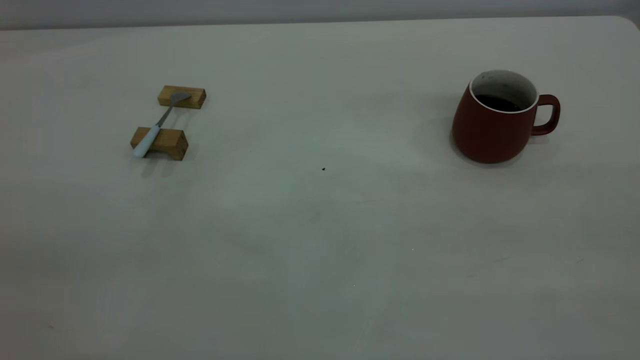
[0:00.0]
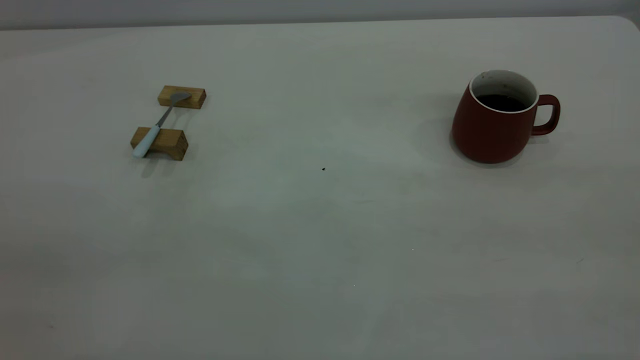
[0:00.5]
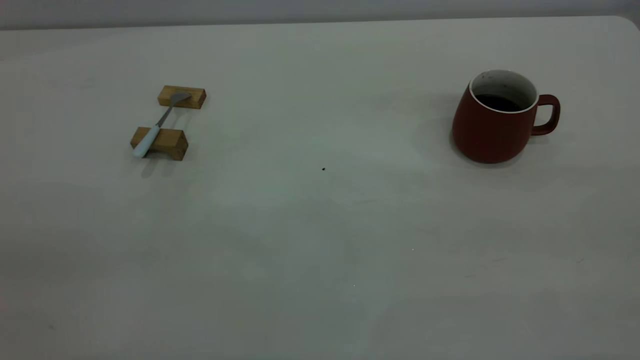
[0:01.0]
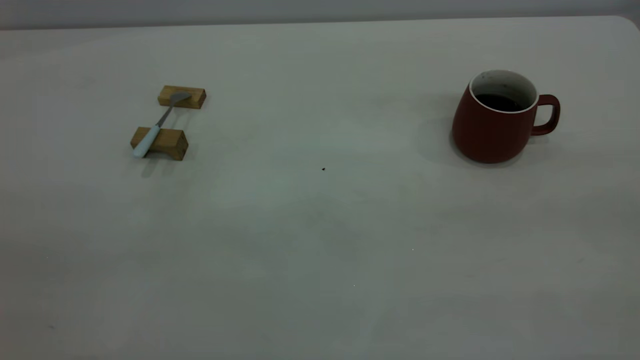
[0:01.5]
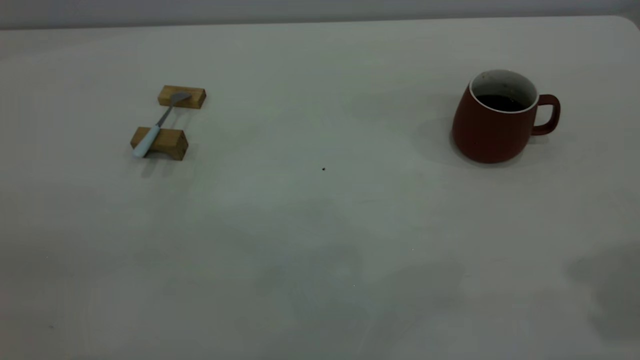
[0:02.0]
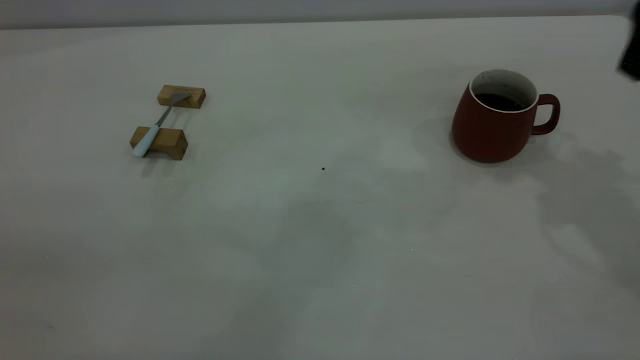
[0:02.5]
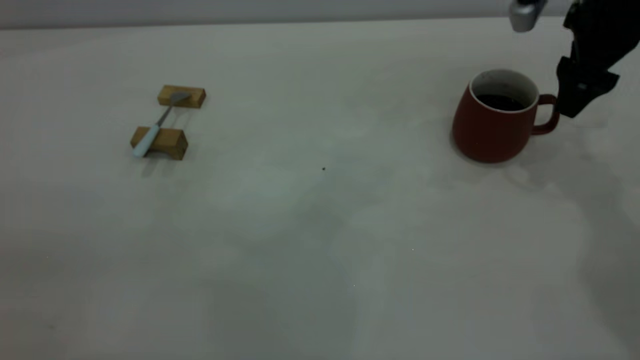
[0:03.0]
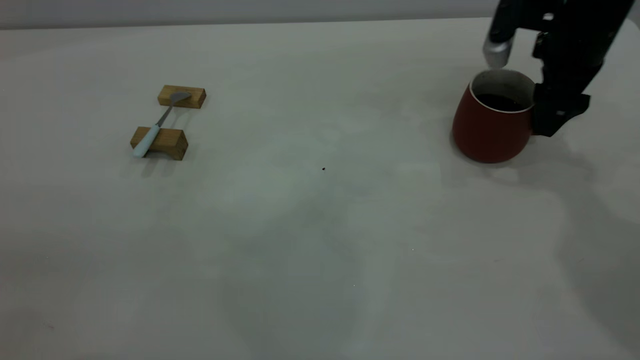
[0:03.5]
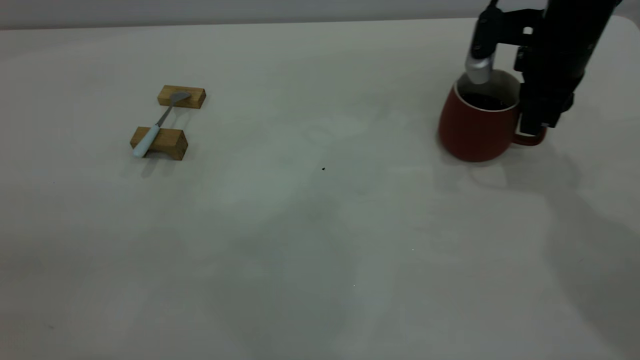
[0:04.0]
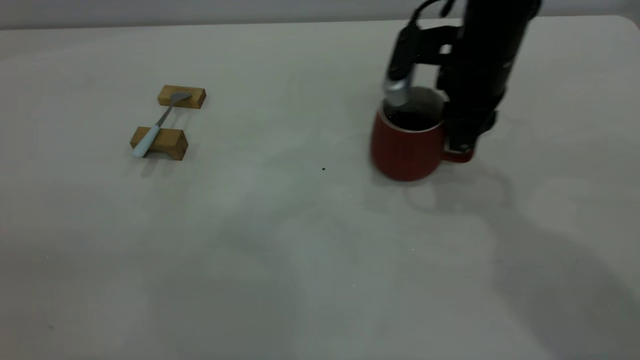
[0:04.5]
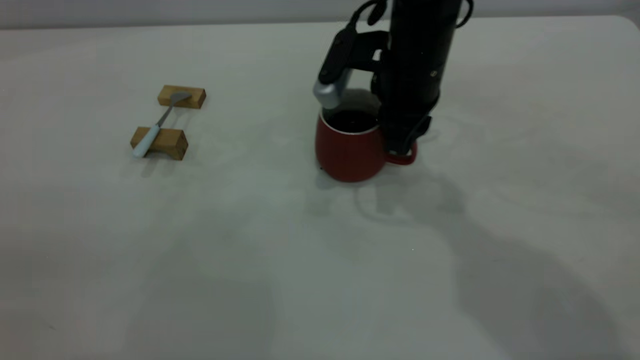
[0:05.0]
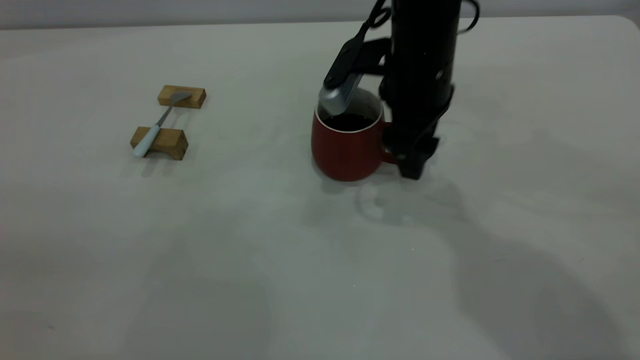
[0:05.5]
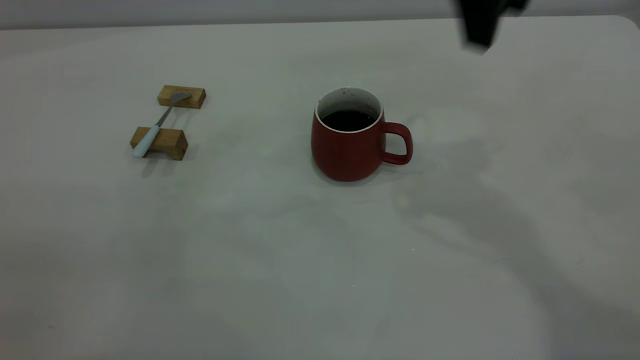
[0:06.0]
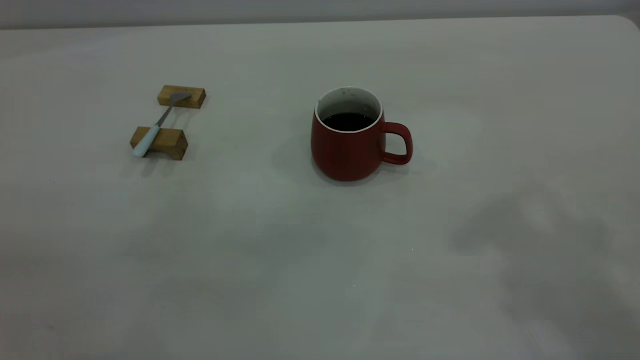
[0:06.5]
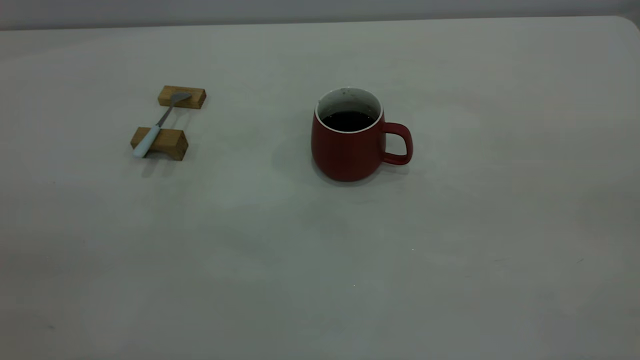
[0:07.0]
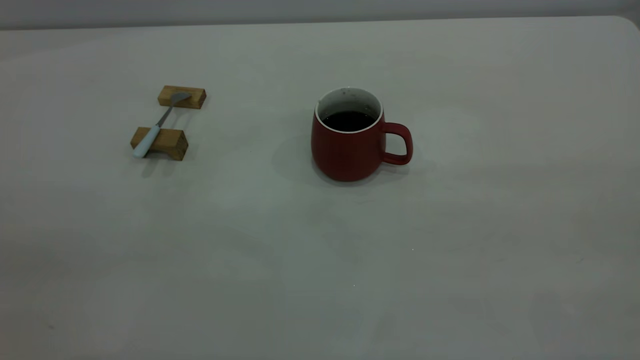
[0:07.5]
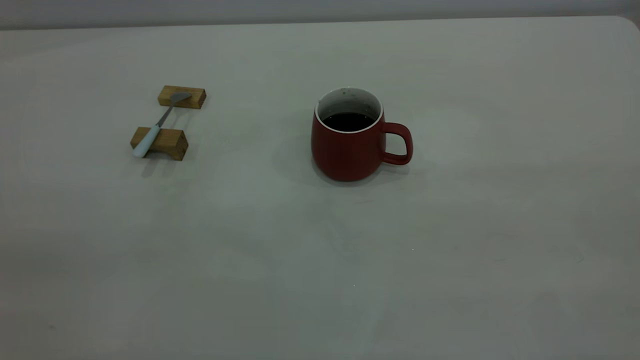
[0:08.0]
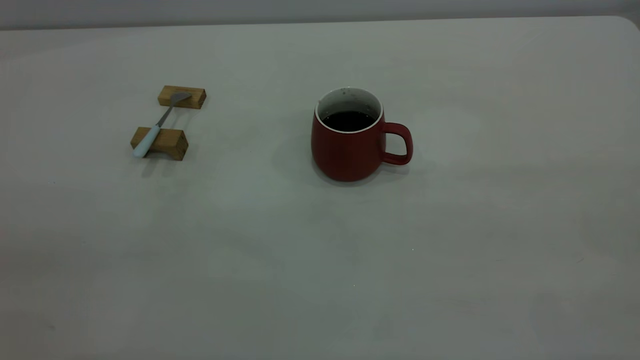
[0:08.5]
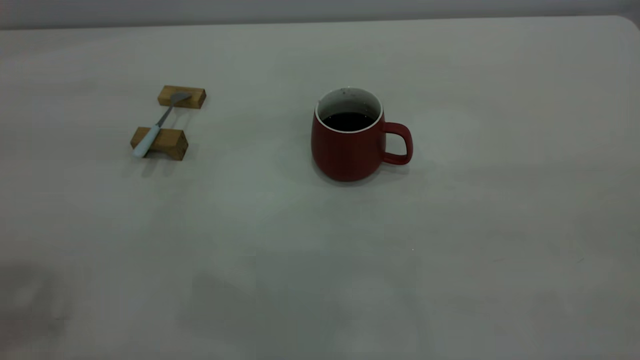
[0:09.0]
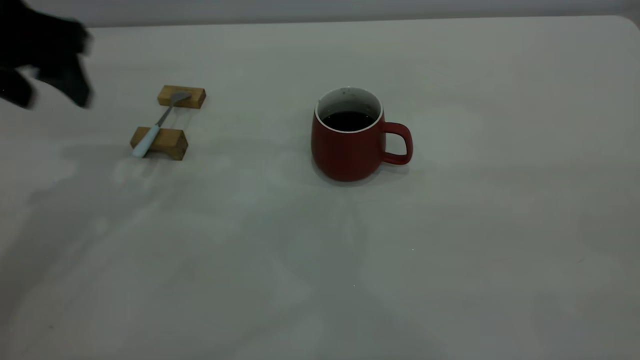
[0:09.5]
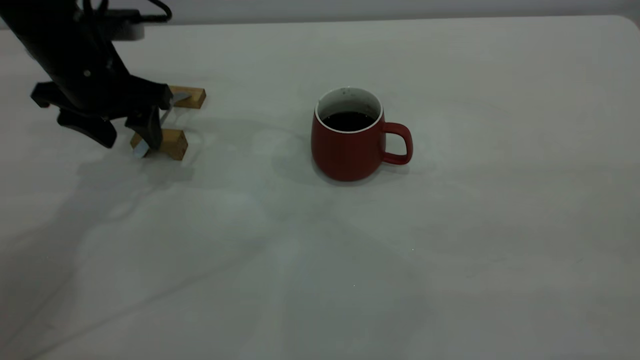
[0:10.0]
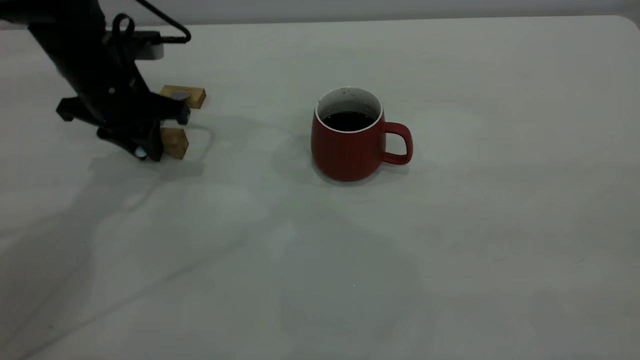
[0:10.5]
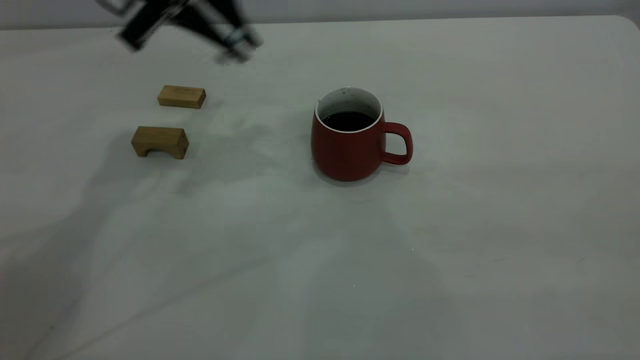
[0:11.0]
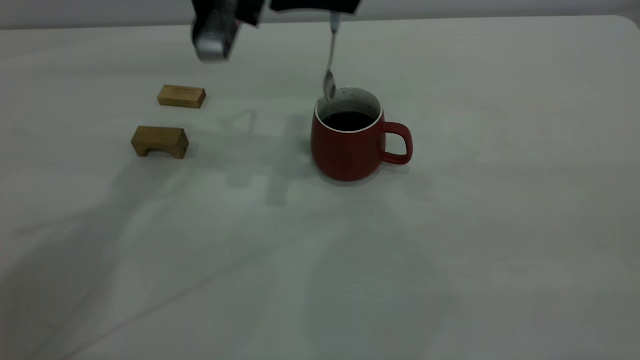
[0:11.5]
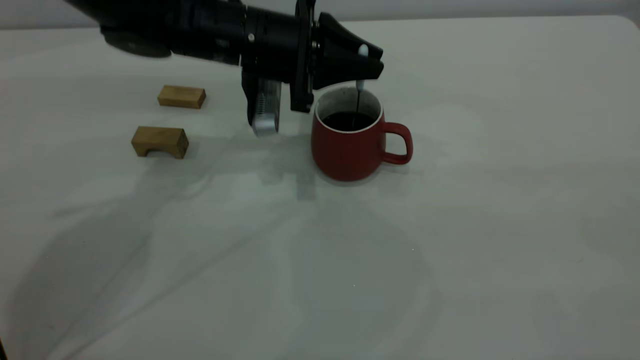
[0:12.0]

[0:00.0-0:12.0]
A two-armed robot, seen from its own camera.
Step, 0:00.0 to 0:05.5: Move the cup with coffee to the center of view.
Step, 0:06.0 to 0:10.5: Pick up the spoon.
0:02.0 to 0:04.0: The right gripper heads forward and downward, covering some 35 cm, and closes its fingers.
0:04.0 to 0:06.0: The right gripper moves upward and to the left, about 20 cm, and opens up.
0:06.0 to 0:08.0: The right gripper shifts some 40 cm backward and to the right, and closes up.
0:08.0 to 0:10.0: The left gripper goes roughly 50 cm forward and downward, and opens.
0:10.0 to 0:12.0: The left gripper shifts roughly 15 cm to the right, and closes its fingers.

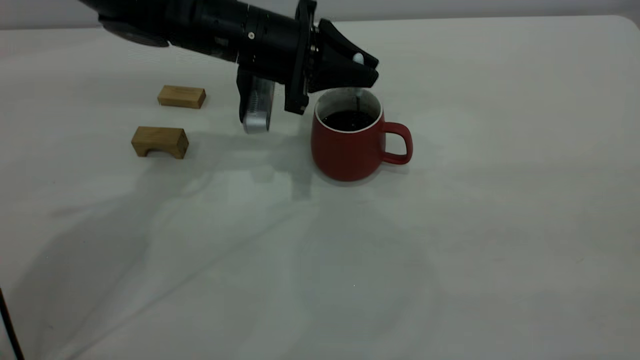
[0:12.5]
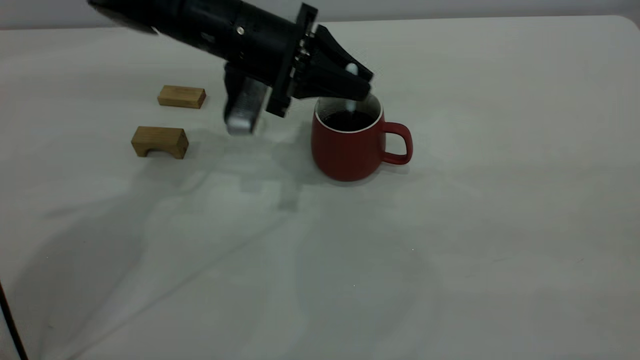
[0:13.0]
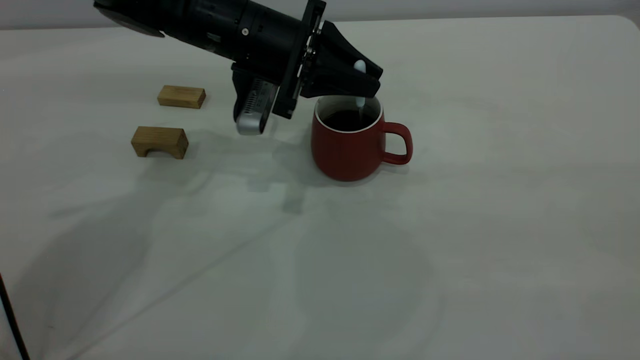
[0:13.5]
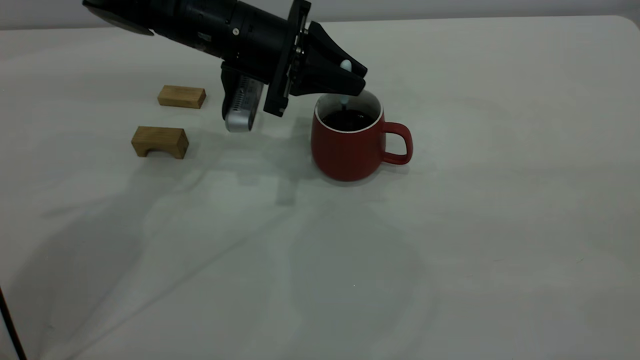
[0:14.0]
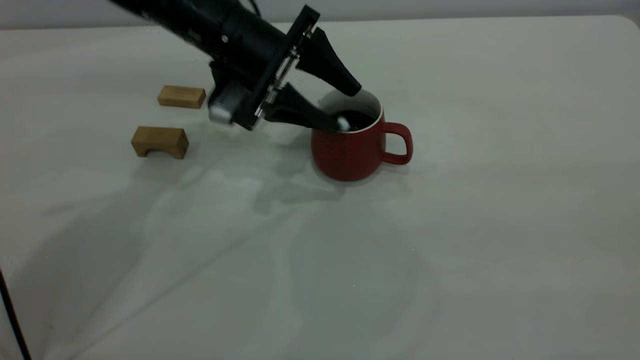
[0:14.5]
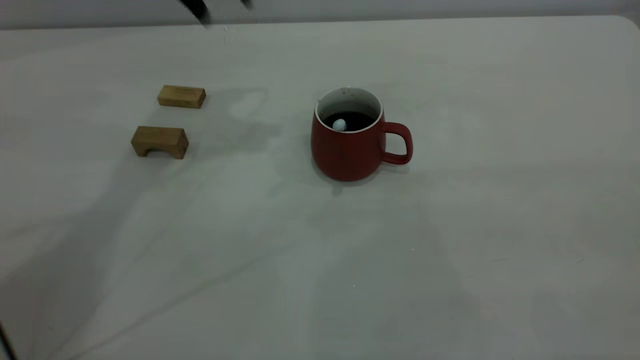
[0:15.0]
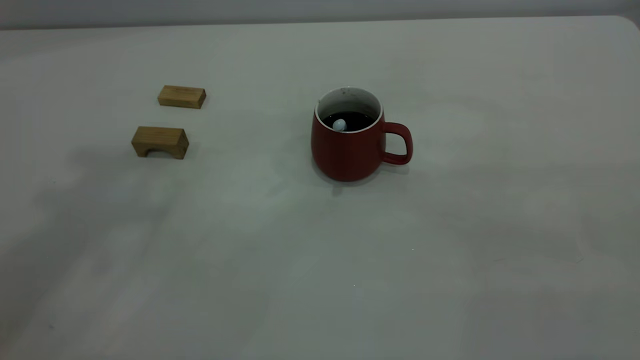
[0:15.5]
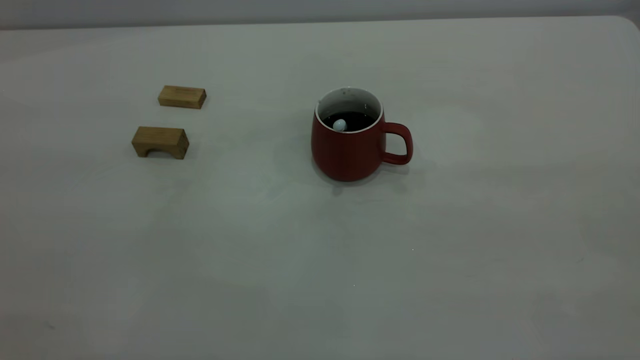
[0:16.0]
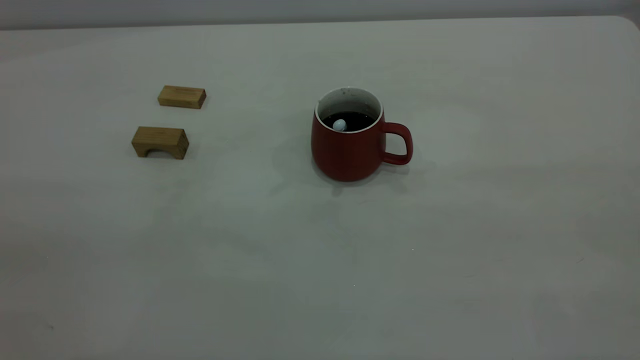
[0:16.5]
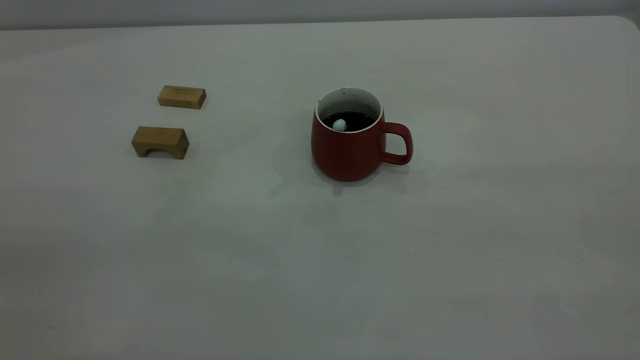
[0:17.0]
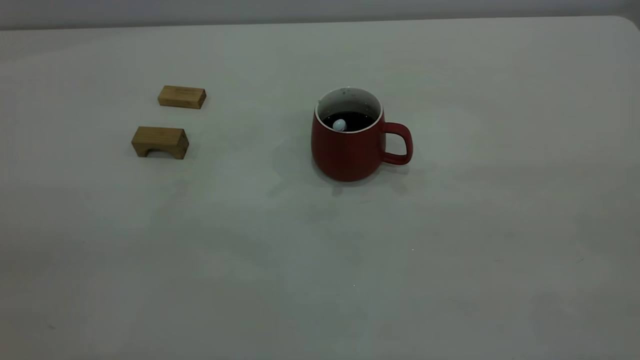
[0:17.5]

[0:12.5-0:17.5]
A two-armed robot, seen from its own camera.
Step, 0:12.5 to 0:14.5: Stir the coffee in the cup.
0:12.5 to 0:15.0: The left gripper moves upward, roughly 20 cm, and opens its fingers.
